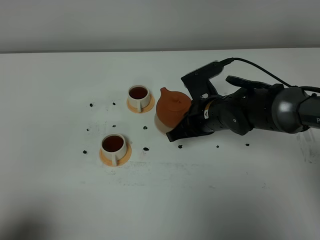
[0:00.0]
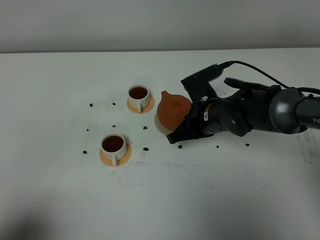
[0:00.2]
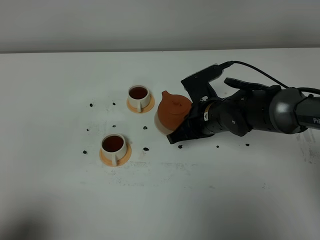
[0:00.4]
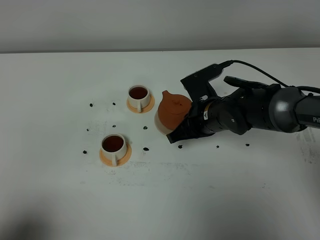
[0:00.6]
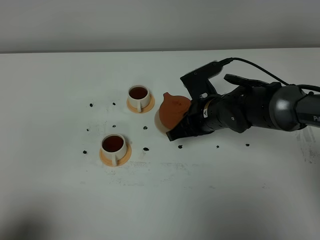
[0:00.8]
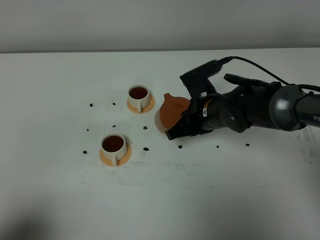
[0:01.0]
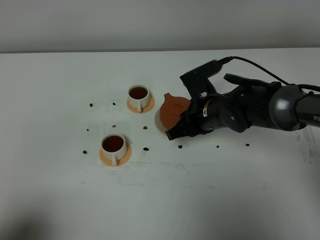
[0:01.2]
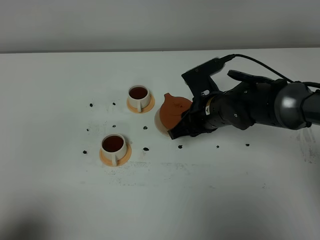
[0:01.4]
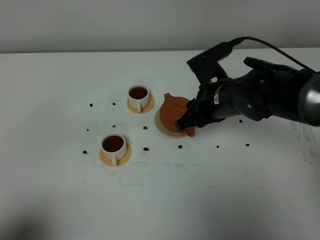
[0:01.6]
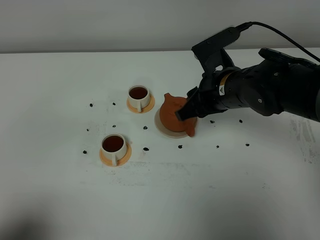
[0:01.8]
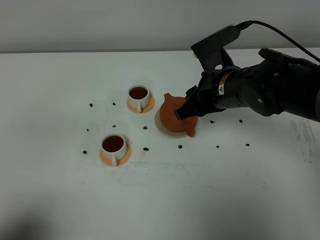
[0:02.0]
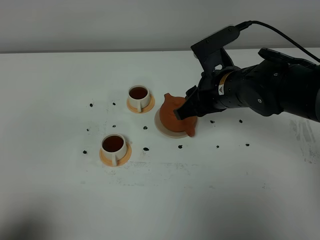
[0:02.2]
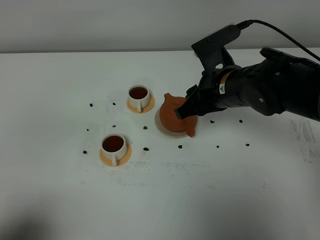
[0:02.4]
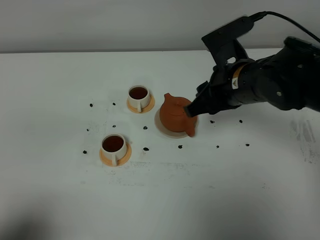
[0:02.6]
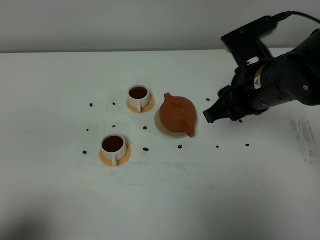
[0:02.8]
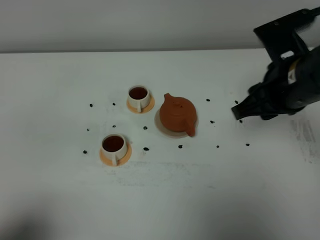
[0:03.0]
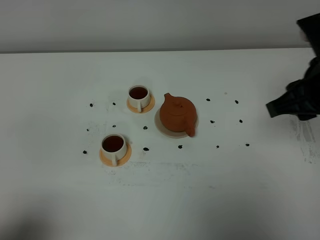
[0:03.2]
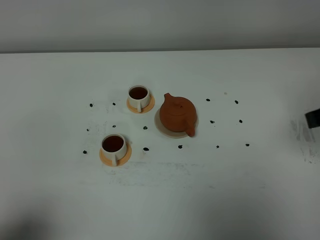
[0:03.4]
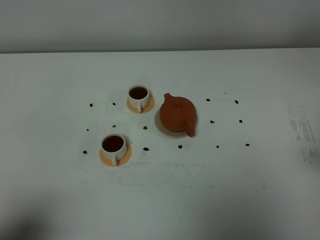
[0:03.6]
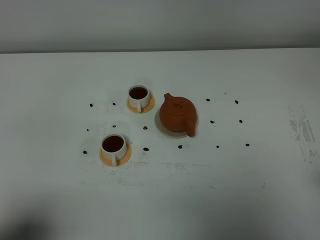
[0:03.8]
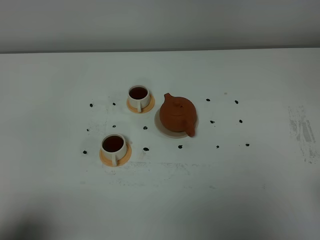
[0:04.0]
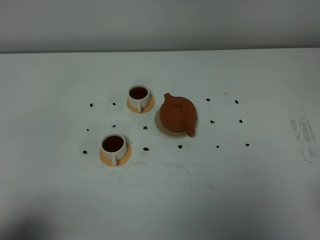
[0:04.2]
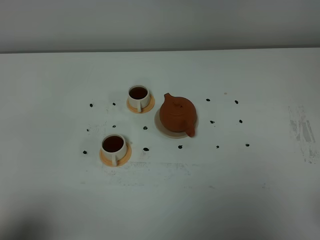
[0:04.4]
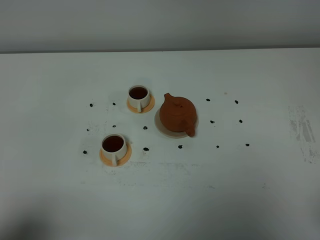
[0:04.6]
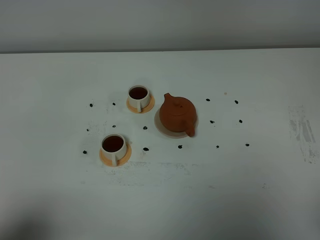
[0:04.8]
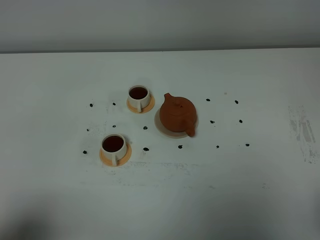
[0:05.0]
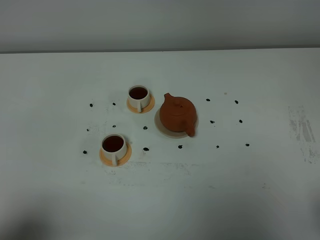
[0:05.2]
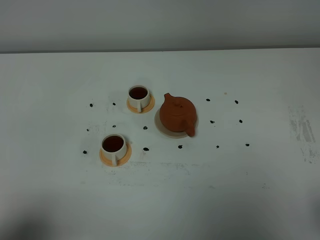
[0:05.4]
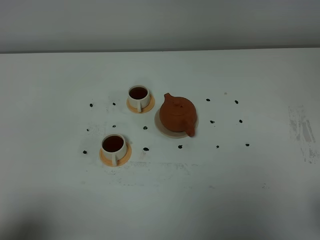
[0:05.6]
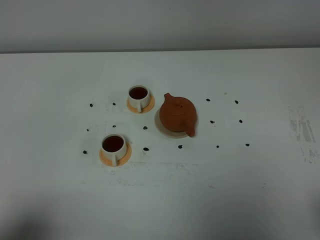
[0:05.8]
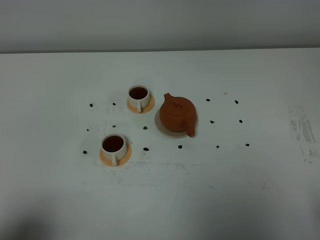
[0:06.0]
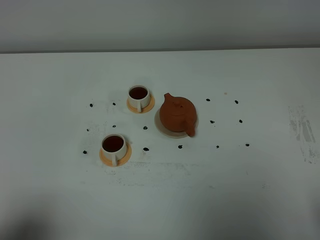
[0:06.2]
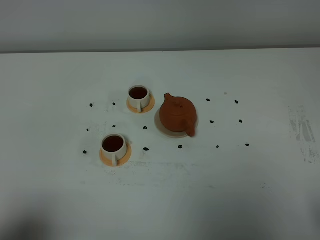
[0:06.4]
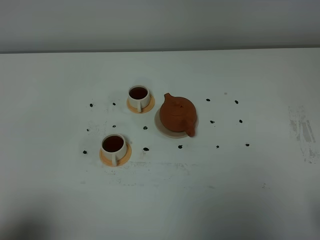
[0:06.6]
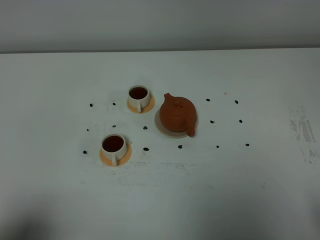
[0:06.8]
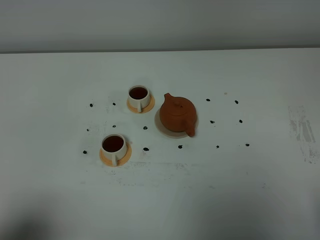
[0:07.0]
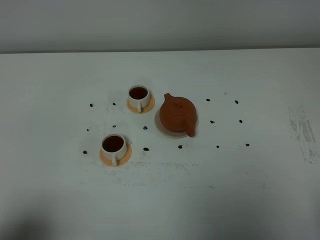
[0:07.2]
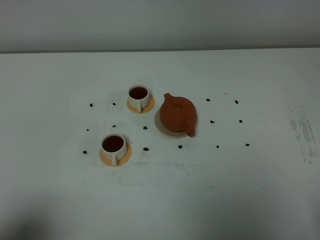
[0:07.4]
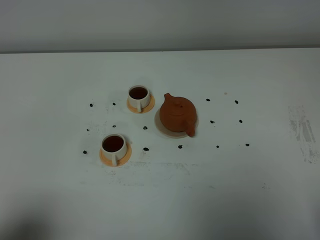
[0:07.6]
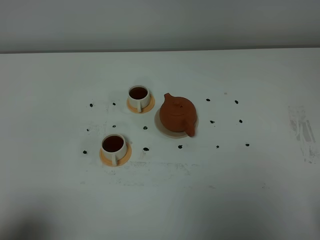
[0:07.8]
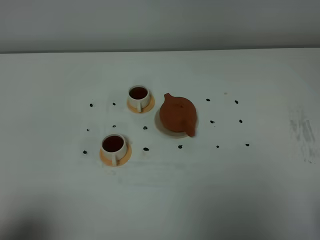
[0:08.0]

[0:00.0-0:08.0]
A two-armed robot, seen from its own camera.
Task of the whole recording: grasp the brown teapot and pour the tea into the two white teacups one by one, put the brown teapot back in its original place.
0:00.0 to 0:01.6: The right gripper moves upward, some 5 cm, and opens up.
0:01.6 to 0:03.2: The right gripper moves upward, to the right and backward, approximately 20 cm.
0:03.2 to 0:04.8: The right gripper travels backward by about 20 cm.
